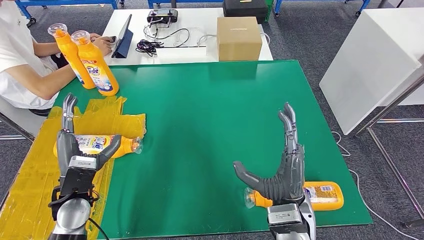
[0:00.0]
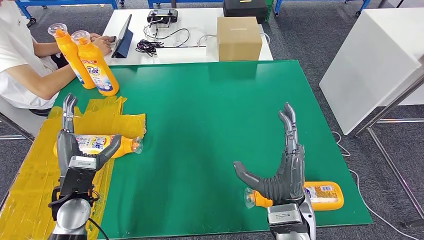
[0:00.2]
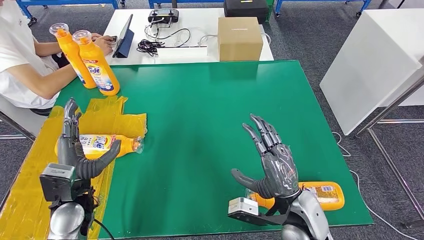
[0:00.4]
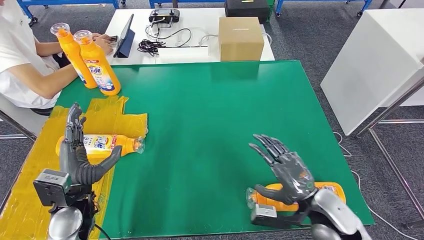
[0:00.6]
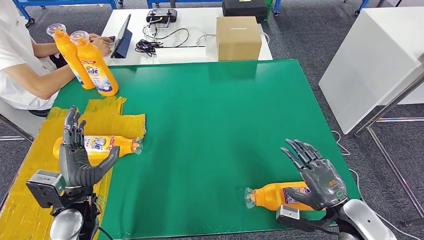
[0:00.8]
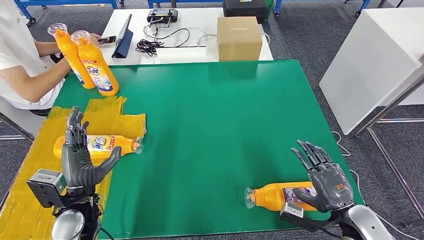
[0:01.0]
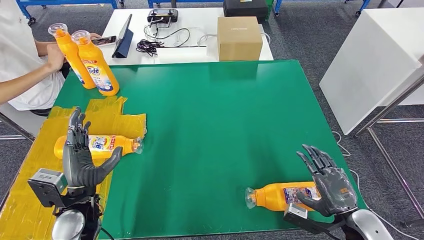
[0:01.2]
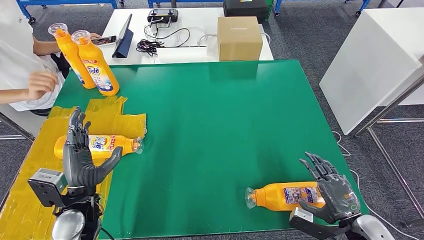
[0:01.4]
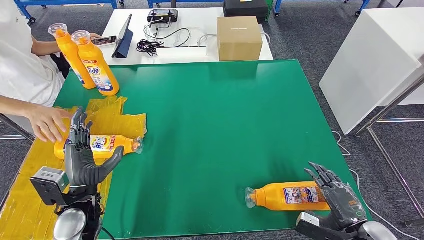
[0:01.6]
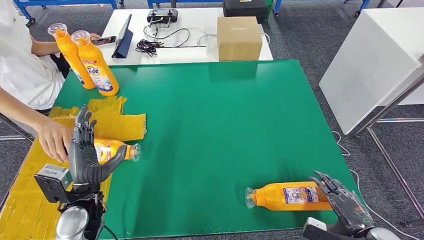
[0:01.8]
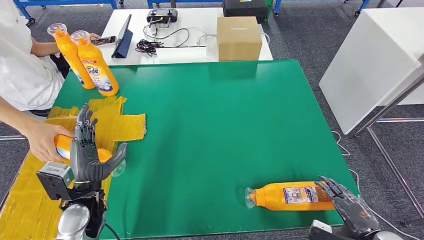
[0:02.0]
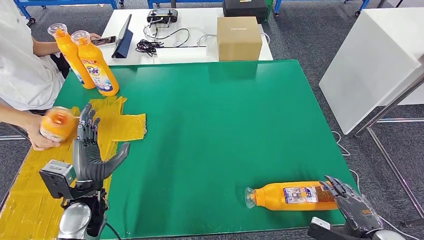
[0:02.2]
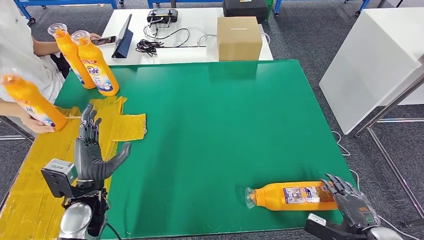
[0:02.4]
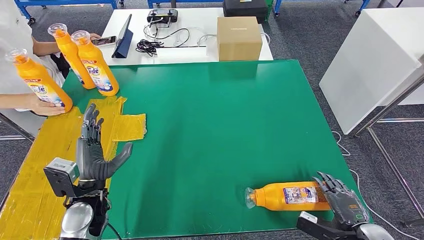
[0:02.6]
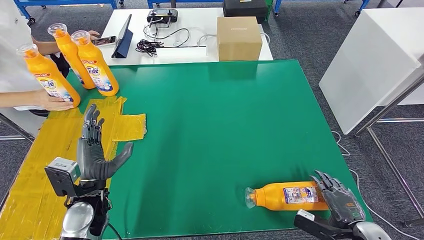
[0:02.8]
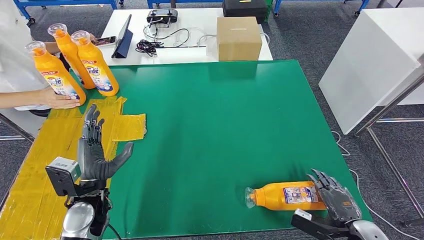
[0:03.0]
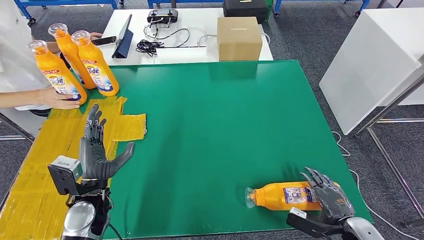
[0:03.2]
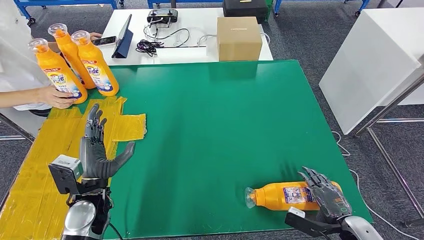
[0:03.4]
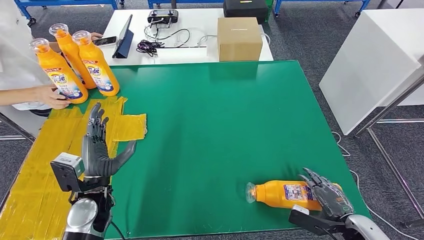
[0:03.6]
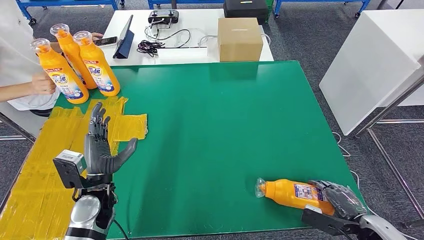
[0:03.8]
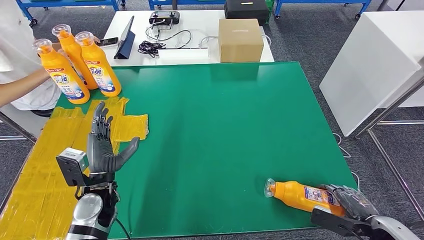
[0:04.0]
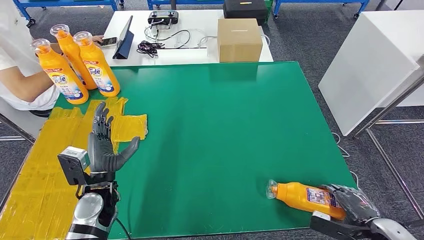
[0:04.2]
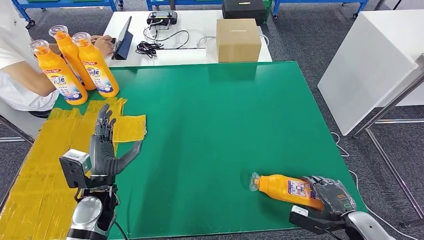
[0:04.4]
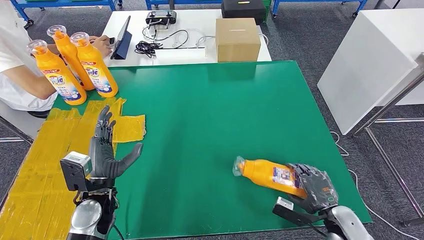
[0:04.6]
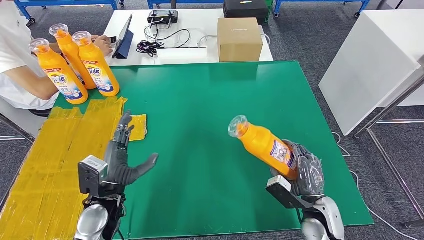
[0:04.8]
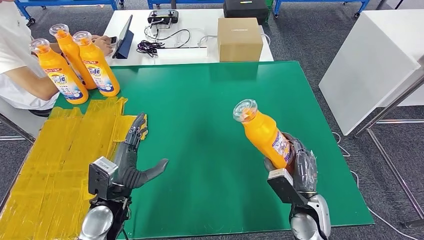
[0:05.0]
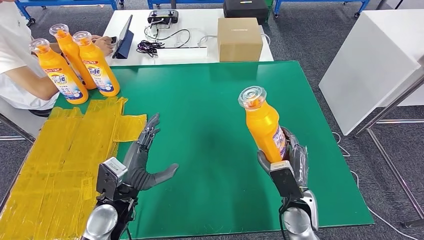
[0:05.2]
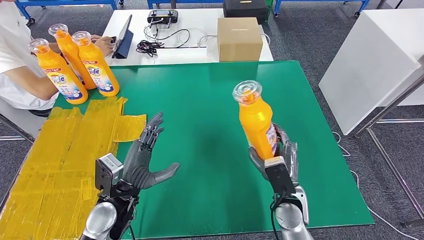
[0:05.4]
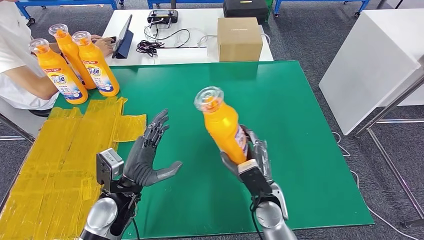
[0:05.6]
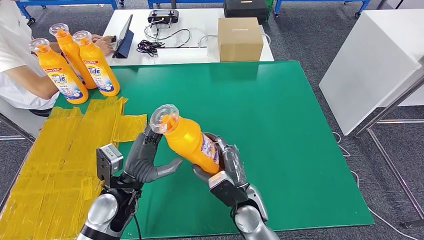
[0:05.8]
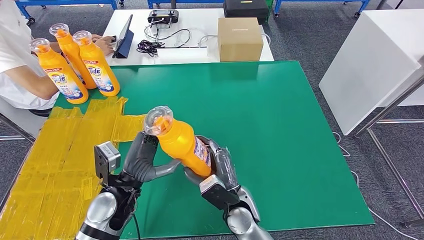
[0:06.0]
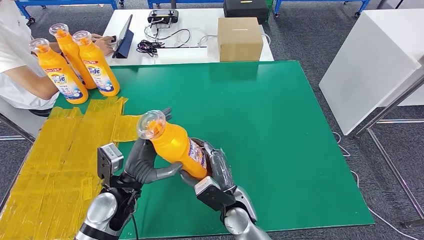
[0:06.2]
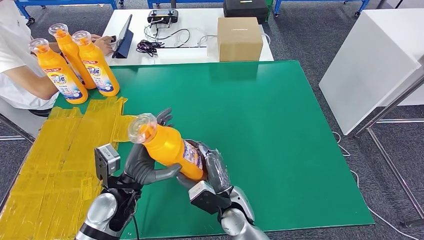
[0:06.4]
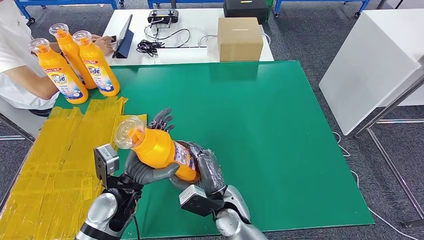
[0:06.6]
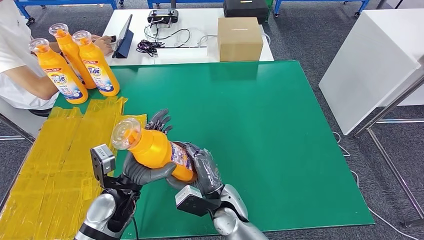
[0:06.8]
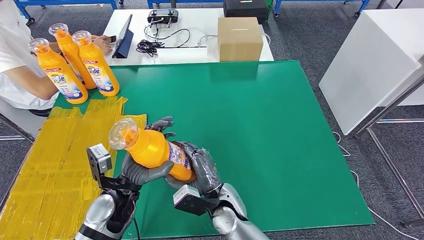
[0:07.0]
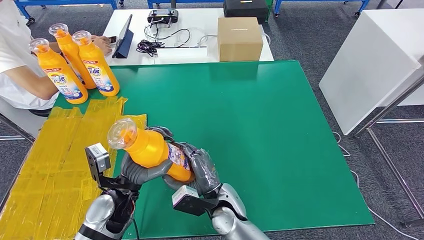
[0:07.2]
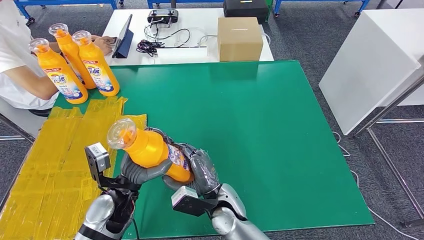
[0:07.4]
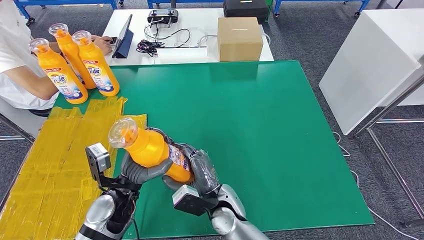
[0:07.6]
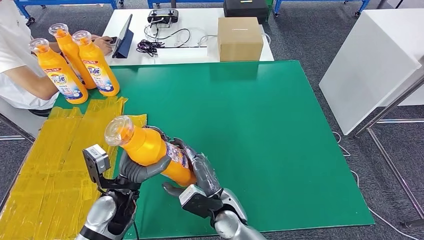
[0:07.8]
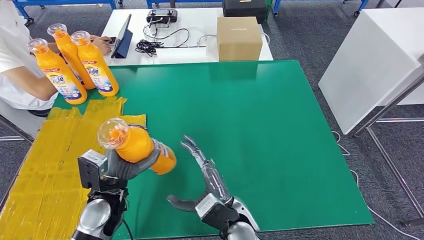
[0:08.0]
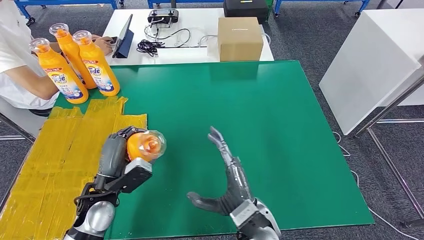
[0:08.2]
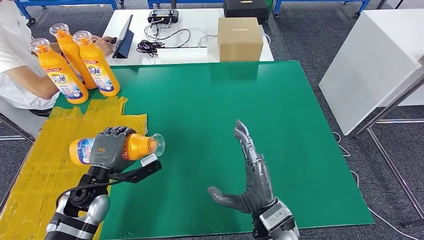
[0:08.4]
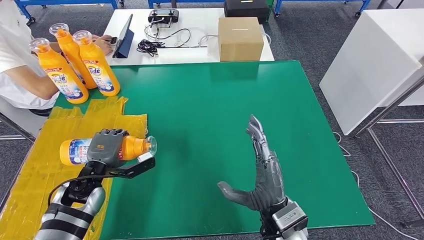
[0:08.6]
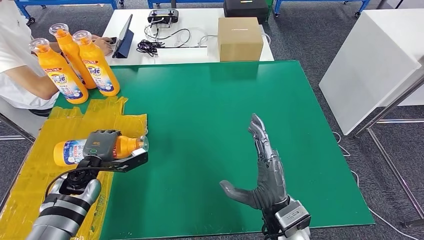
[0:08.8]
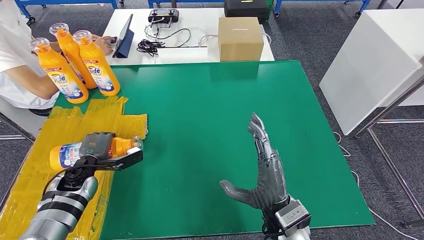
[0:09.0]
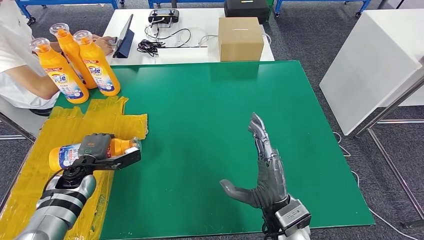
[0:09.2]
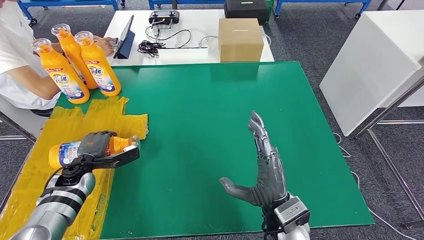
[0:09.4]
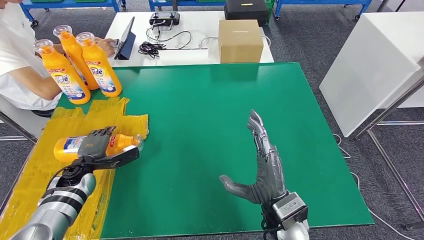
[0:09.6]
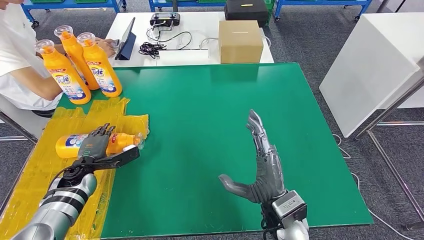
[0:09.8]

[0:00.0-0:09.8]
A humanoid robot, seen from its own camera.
Step, 0:00.0 to 0:05.8: Pick up the fast-moving consumer goods bottle from the table.
Step, 0:06.0 to 0:09.8: Flip the fast-moving consumer goods bottle to the front side.
0:00.0 to 0:01.4: The right hand moves to the right, some 20 cm.
0:01.4 to 0:02.8: The right hand moves some 5 cm.
0:02.8 to 0:04.2: The hands make only small movements.
0:05.6 to 0:07.0: The right hand moves to the left, approximately 10 cm.
0:07.0 to 0:08.4: The right hand is displaced to the right, upward and backward by some 15 cm, while the left hand heads to the left, covering approximately 10 cm.

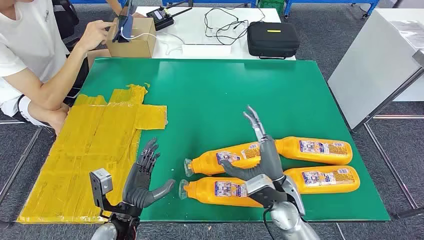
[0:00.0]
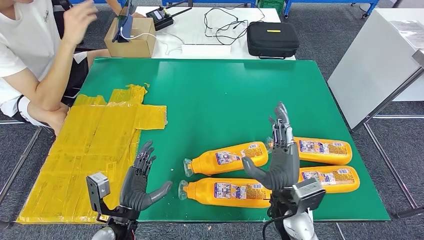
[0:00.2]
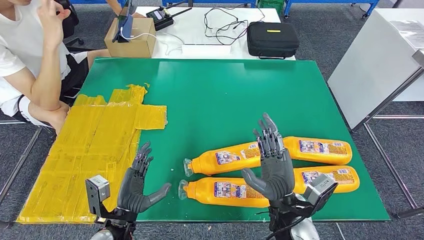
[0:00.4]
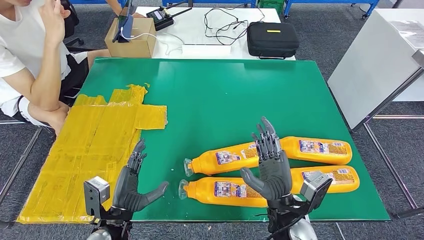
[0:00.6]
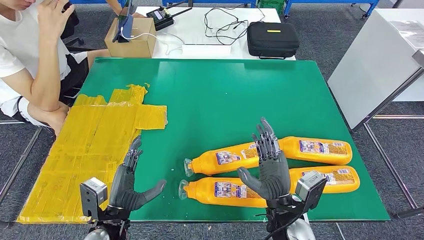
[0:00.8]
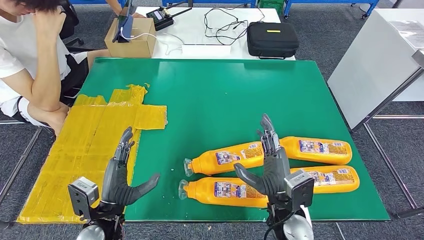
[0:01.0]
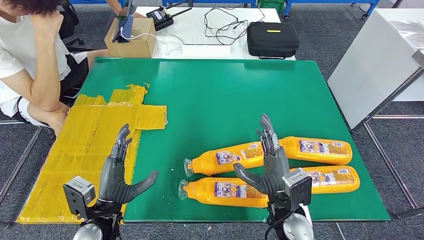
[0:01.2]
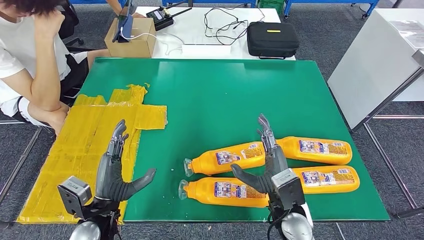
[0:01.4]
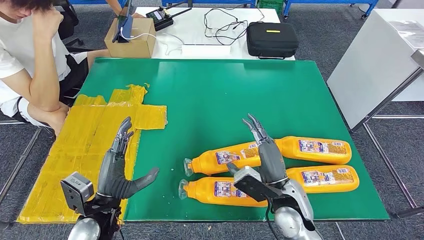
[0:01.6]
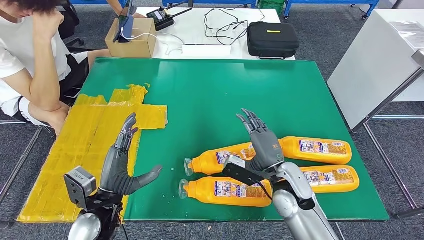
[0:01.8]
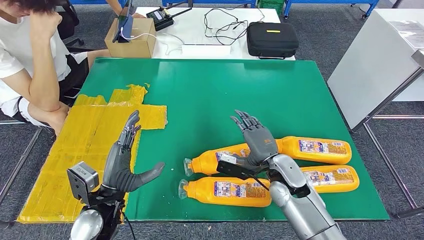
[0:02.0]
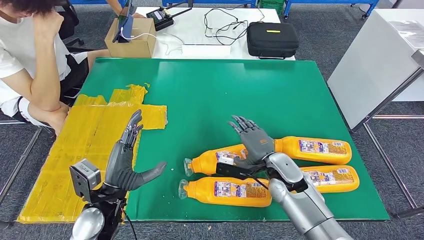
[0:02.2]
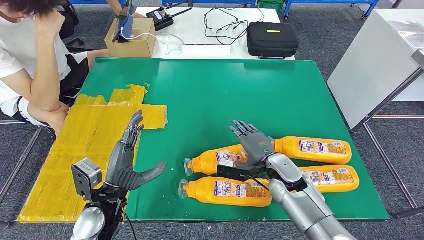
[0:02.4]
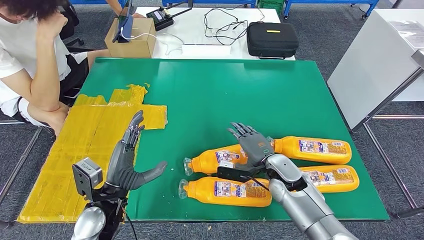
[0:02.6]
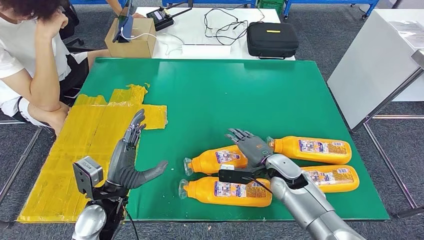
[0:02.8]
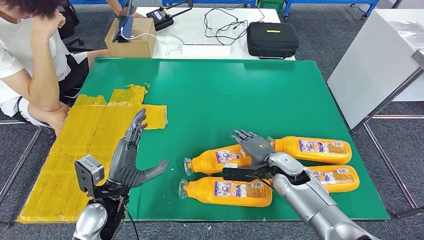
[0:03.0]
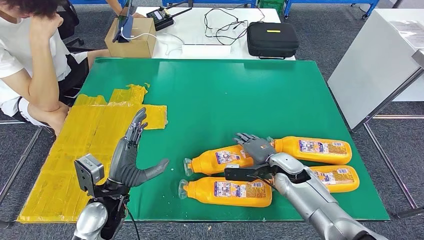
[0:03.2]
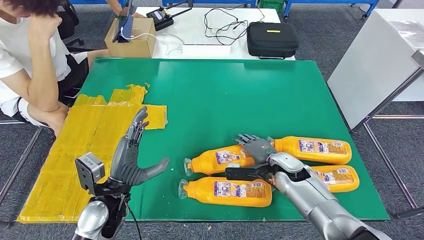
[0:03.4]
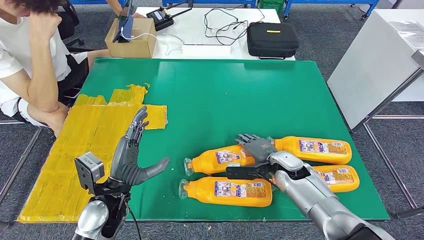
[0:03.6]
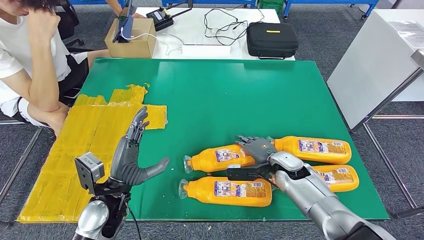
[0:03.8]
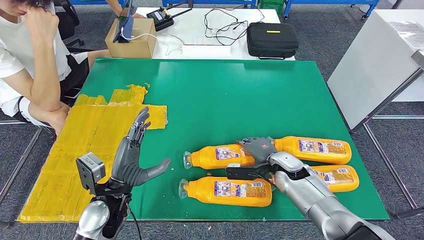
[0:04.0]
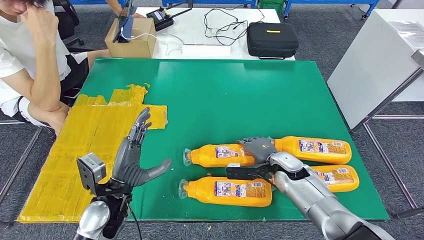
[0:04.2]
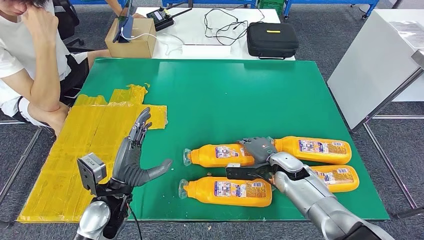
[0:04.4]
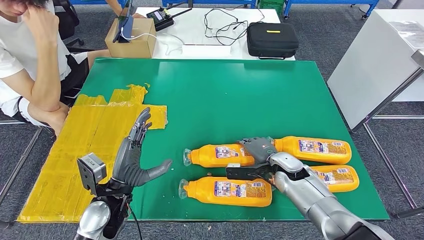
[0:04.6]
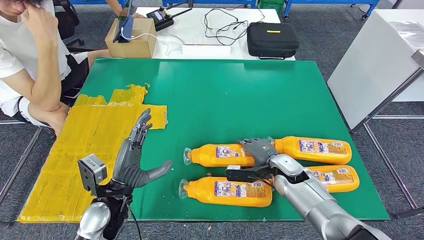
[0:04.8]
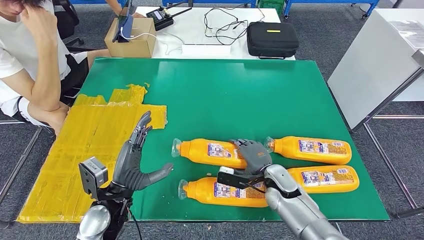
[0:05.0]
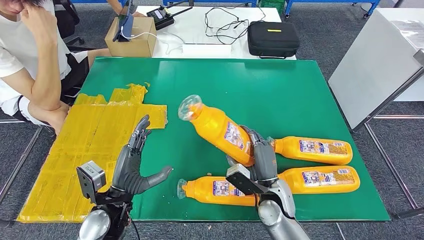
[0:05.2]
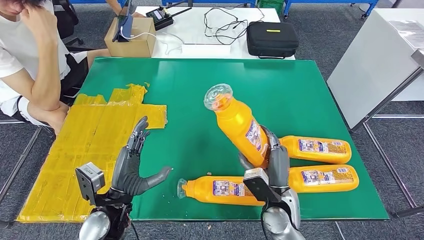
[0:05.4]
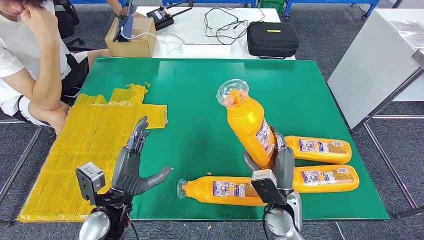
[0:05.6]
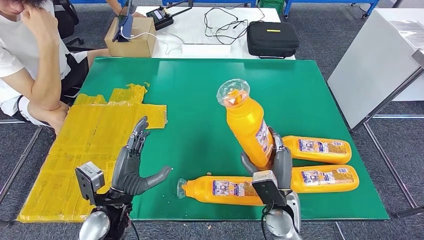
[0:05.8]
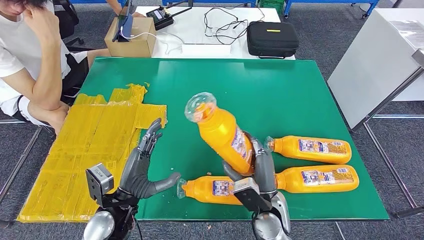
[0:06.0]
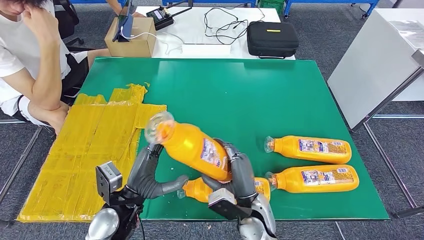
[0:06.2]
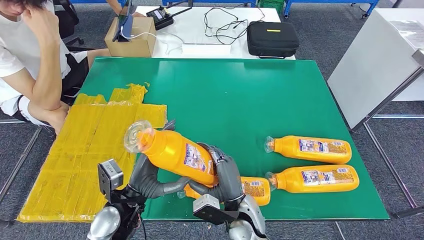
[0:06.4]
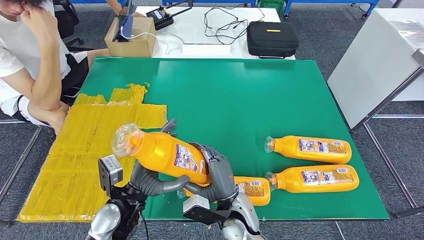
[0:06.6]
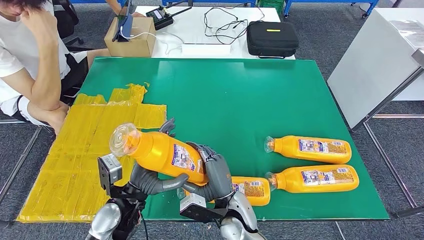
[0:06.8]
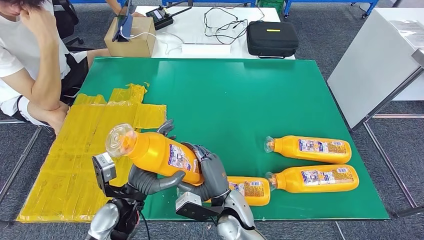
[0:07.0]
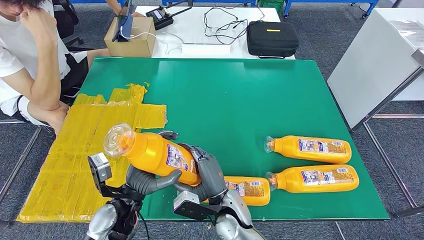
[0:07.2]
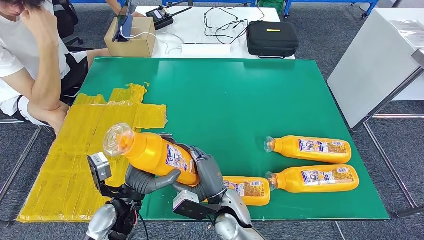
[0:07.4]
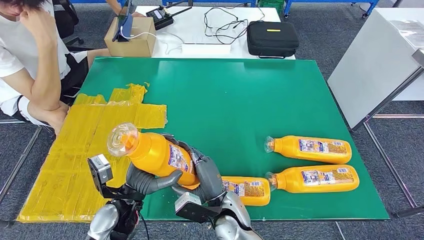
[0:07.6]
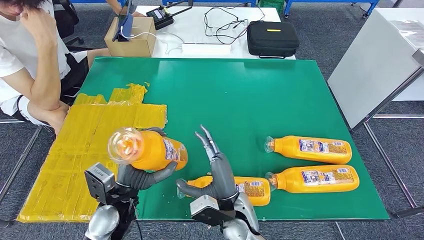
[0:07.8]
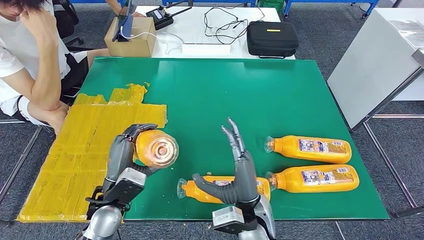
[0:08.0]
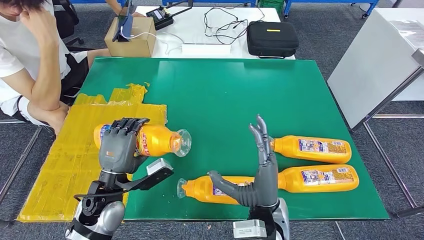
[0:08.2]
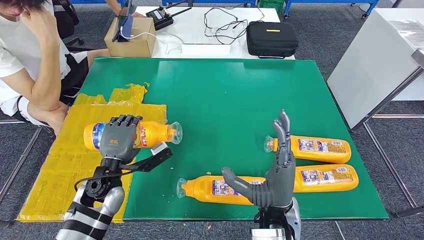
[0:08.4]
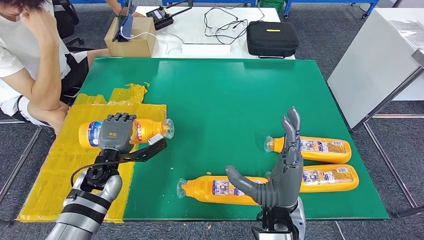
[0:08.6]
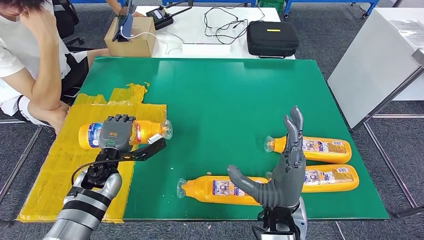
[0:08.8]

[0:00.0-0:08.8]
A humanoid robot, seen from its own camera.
Step, 0:00.0 to 0:06.2: Take the fast-moving consumer goods bottle from the table.
0:01.4 to 0:03.0: The right hand shifts roughly 10 cm forward.
0:03.0 to 0:04.4: The hands move only a little.
0:04.4 to 0:05.8: The right hand shifts some 15 cm backward and to the left.
0:05.8 to 0:07.4: The right hand shifts some 15 cm to the left.
0:07.4 to 0:08.8: The right hand travels upward and to the right by roughly 15 cm. The left hand shifts about 15 cm forward and to the left.
